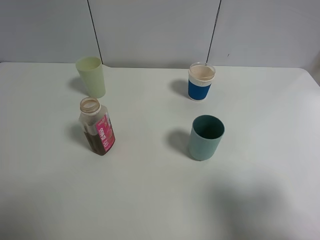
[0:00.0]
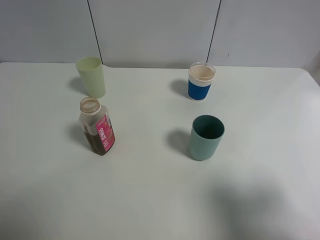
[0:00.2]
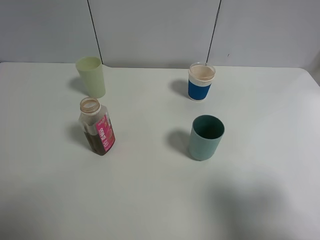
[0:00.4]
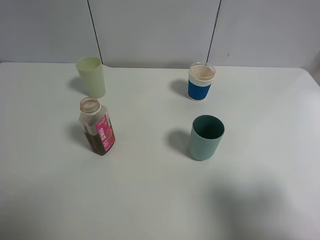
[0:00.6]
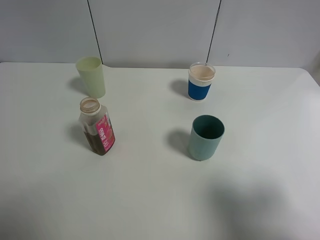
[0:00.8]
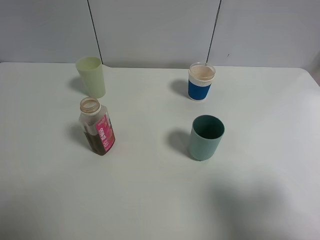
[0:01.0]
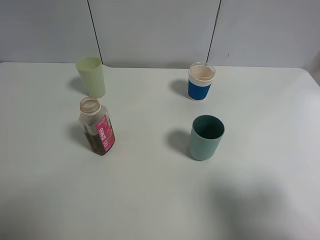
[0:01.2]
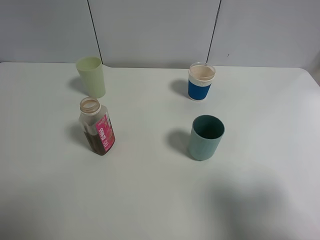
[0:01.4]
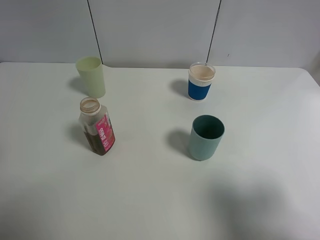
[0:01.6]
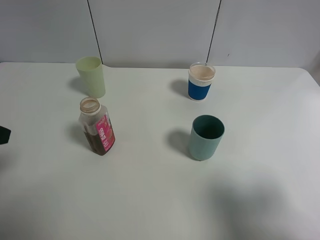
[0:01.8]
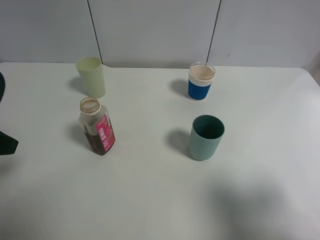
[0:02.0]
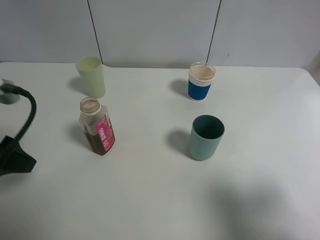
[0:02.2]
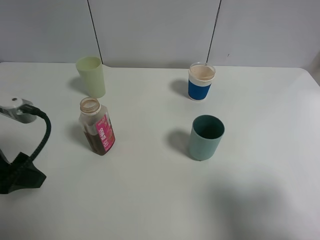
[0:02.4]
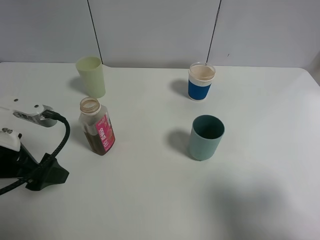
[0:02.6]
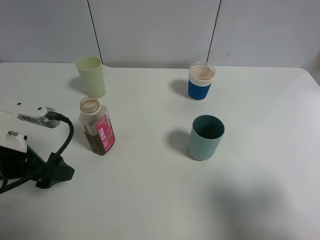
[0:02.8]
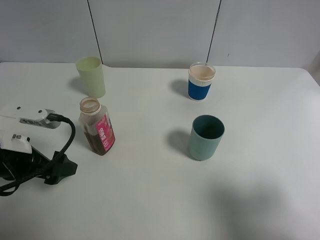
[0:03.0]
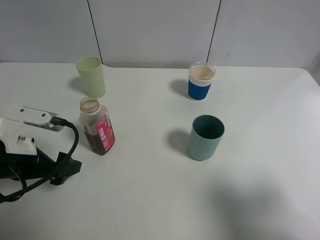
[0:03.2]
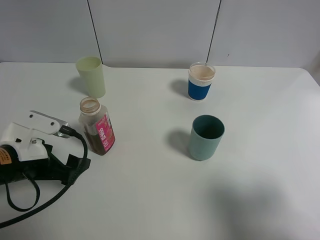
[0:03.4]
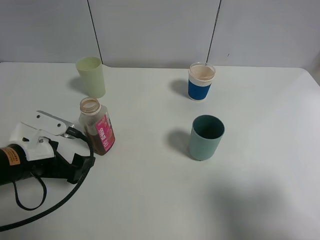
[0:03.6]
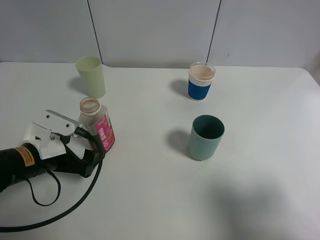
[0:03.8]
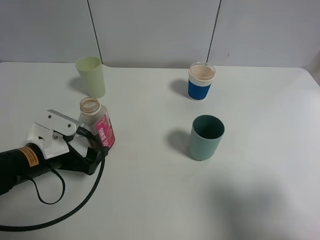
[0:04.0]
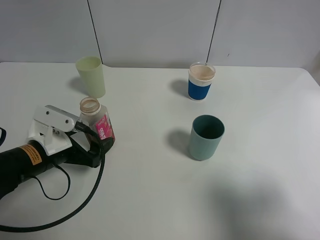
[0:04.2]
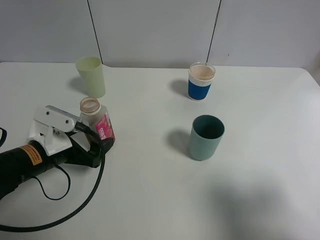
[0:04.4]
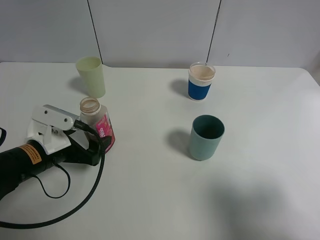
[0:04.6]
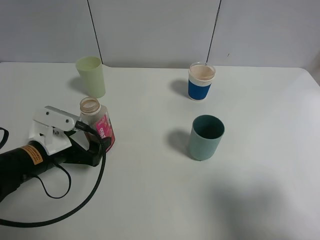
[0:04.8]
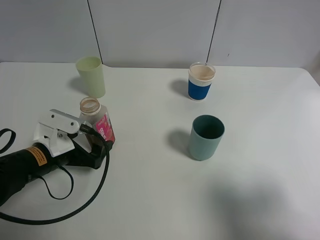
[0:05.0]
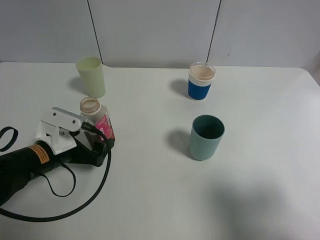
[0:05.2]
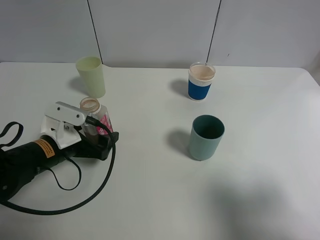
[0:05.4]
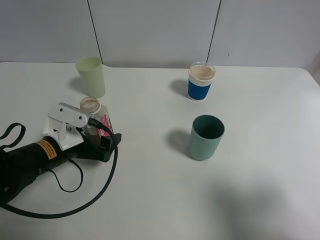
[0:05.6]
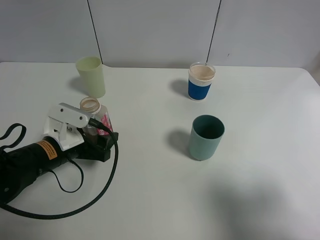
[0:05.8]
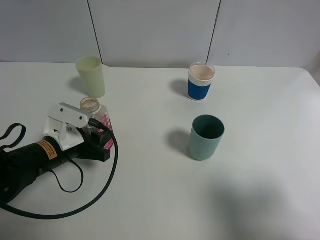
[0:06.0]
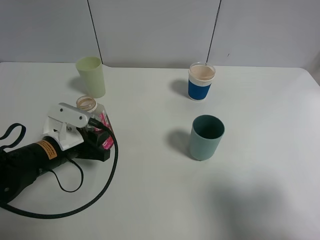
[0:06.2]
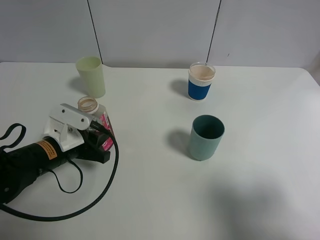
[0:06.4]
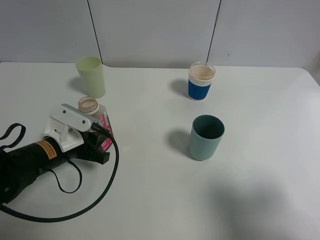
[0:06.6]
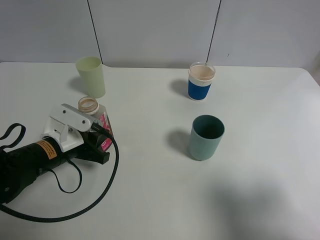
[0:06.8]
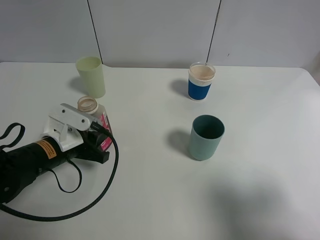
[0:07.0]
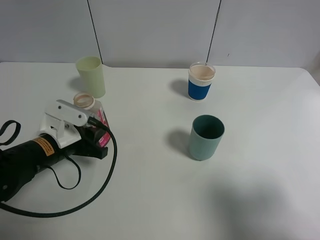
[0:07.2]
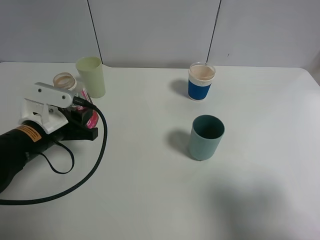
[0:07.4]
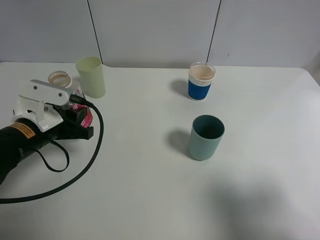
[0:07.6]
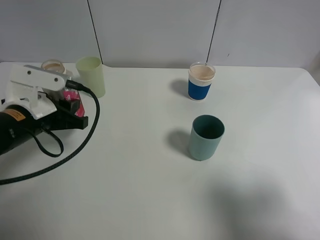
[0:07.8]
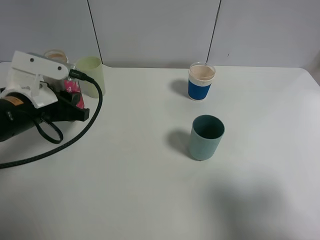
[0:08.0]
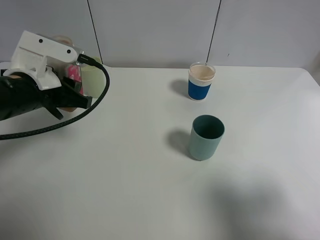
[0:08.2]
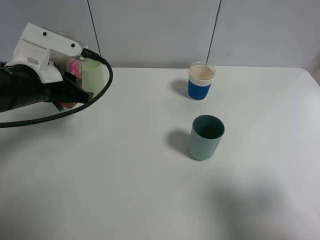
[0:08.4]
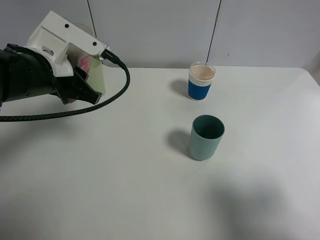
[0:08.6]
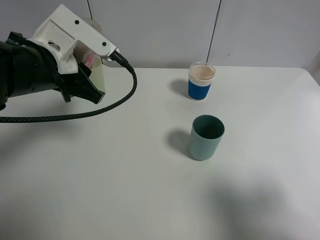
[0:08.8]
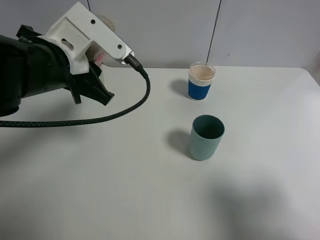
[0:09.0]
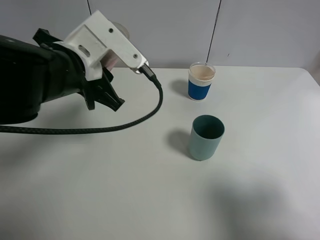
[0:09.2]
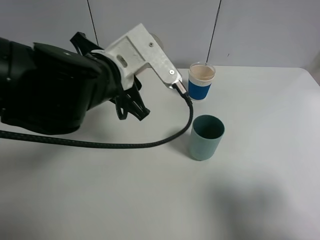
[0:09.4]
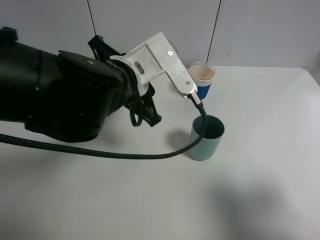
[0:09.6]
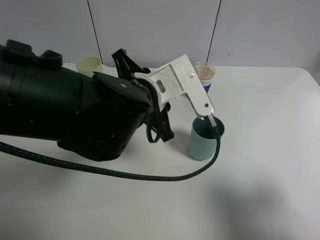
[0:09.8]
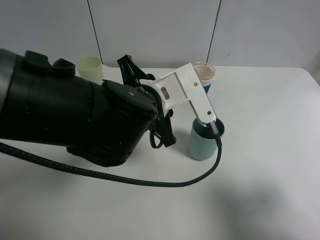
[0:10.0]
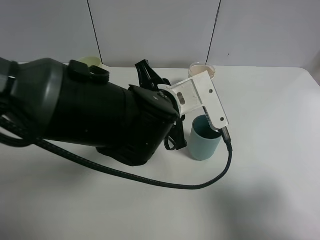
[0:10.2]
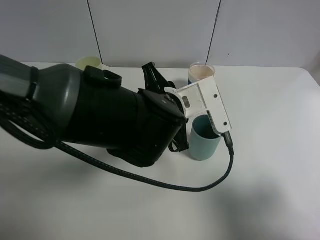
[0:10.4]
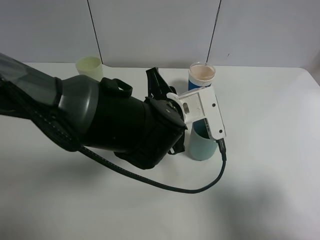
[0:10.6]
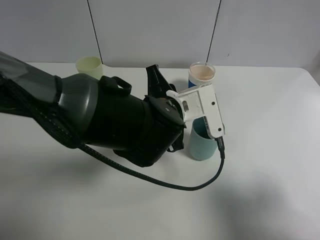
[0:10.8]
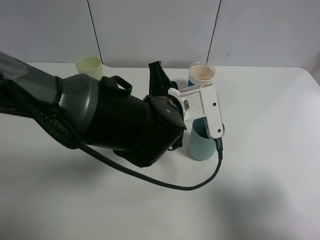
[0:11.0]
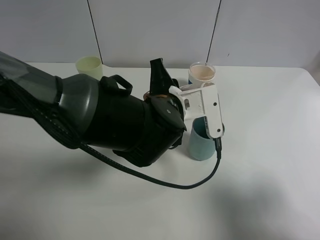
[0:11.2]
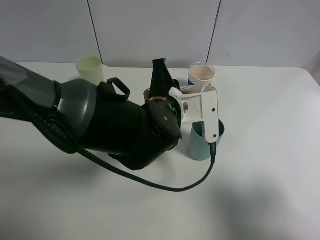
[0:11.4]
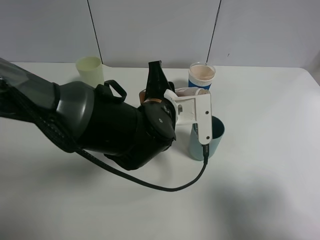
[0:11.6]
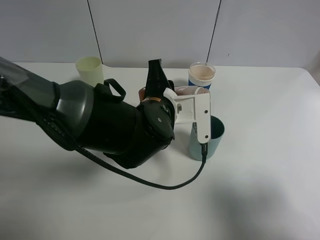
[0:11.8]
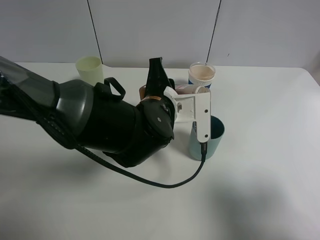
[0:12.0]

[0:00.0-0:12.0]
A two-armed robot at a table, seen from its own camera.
Task of the whole recording: use a clamp to hold the bottle of the drink, pour the beverage into a random cup, then clamp the cup containing the drink and pour the drink into another random cup.
Step, 0:00.0 to 0:07.6: Pick up the drink bottle with left gripper.
0:01.6 to 0:03.0: The left gripper is displaced downward and forward by approximately 15 cm.
0:03.0 to 0:04.4: The left gripper is displaced downward by roughly 5 cm.
0:04.4 to 0:06.0: The left gripper closes its fingers.
0:06.0 to 0:07.6: The left gripper shifts some 5 cm upward.
0:07.6 to 0:09.0: The left gripper is displaced upward and to the right by about 15 cm.
0:09.0 to 0:10.4: The left gripper moves to the right and downward, some 15 cm.
0:10.4 to 0:12.0: The grippers move only a little.

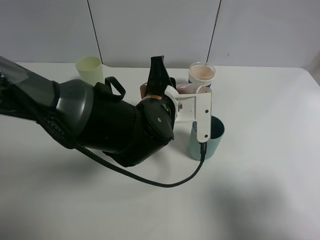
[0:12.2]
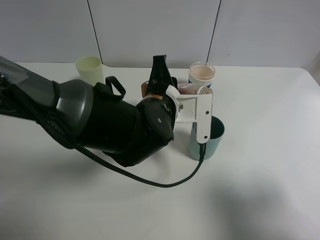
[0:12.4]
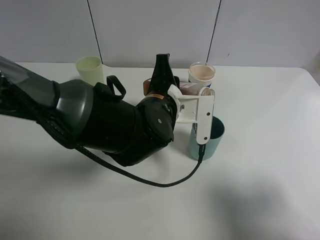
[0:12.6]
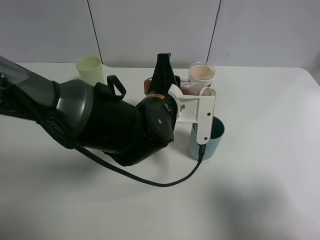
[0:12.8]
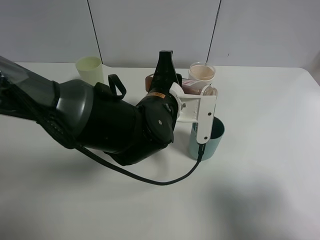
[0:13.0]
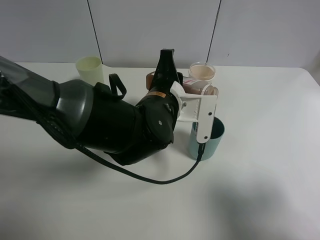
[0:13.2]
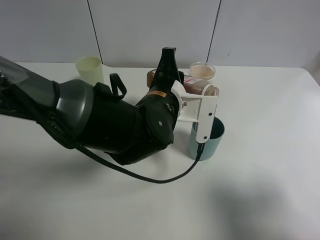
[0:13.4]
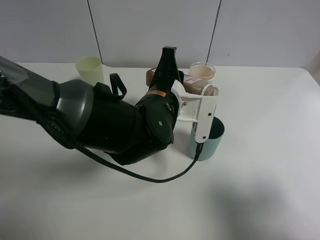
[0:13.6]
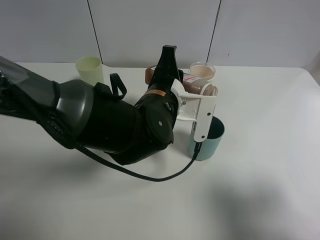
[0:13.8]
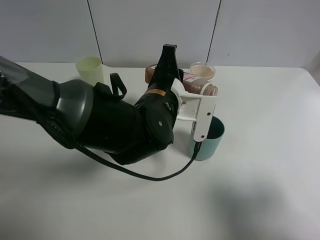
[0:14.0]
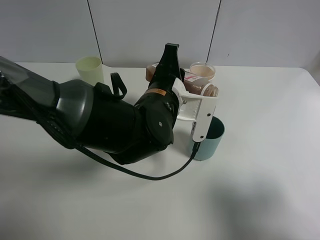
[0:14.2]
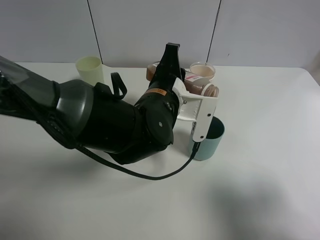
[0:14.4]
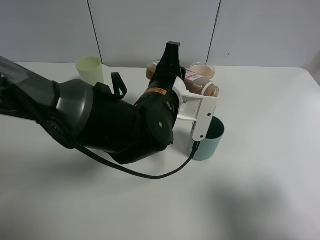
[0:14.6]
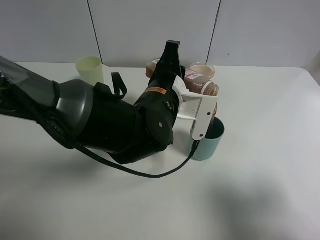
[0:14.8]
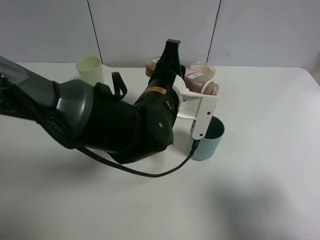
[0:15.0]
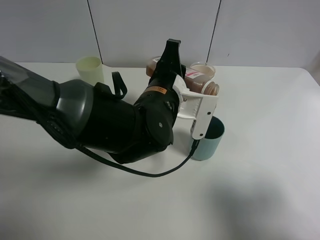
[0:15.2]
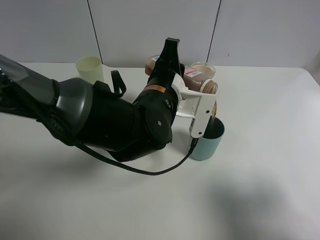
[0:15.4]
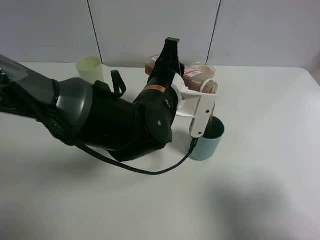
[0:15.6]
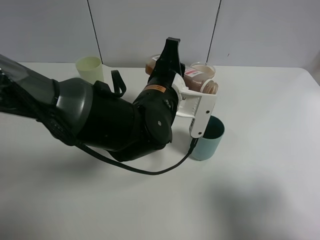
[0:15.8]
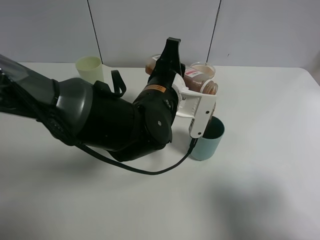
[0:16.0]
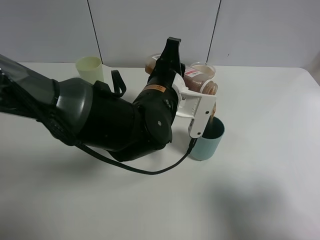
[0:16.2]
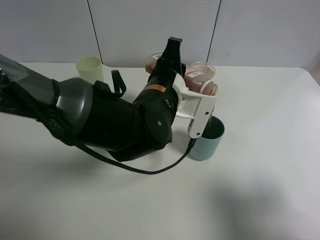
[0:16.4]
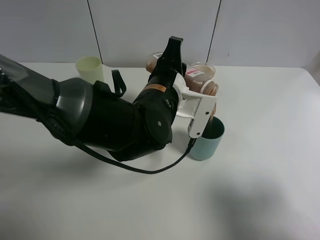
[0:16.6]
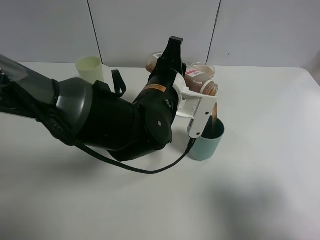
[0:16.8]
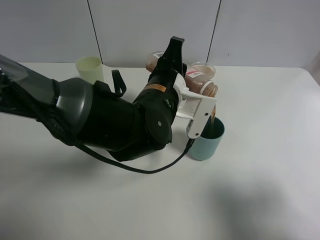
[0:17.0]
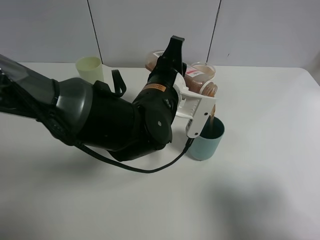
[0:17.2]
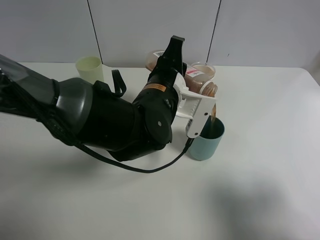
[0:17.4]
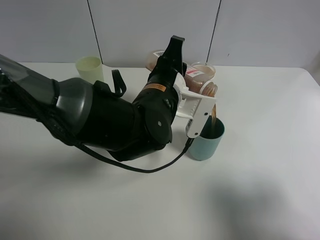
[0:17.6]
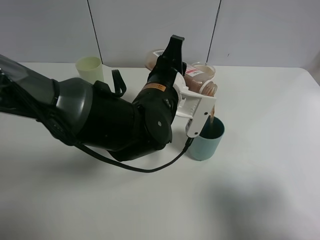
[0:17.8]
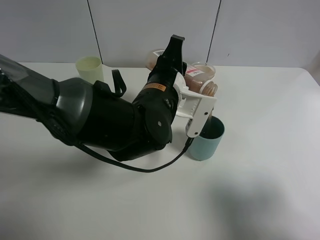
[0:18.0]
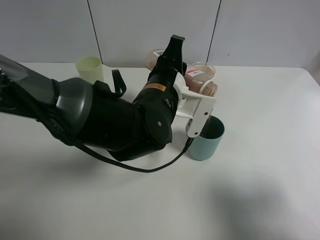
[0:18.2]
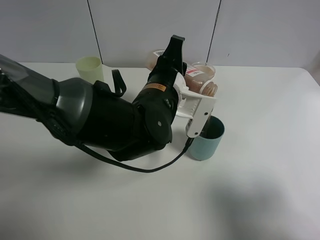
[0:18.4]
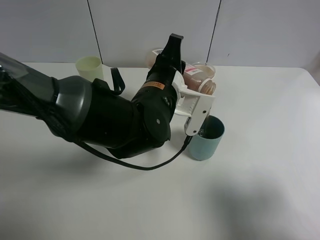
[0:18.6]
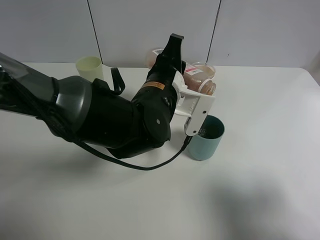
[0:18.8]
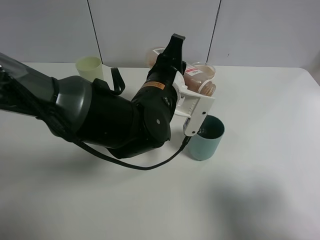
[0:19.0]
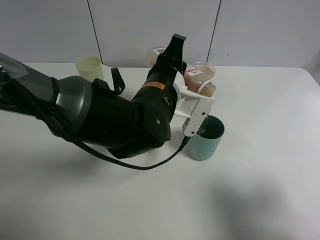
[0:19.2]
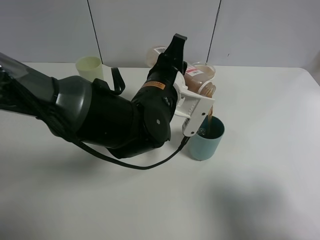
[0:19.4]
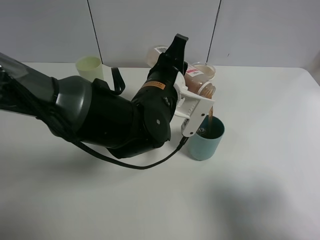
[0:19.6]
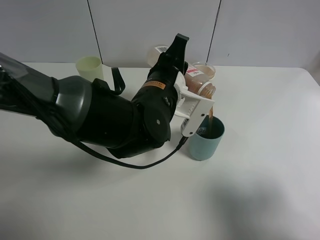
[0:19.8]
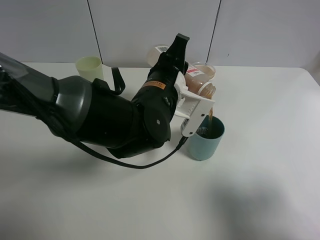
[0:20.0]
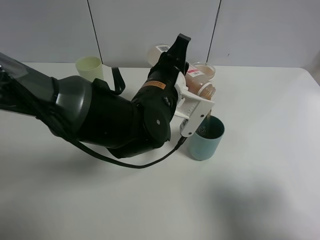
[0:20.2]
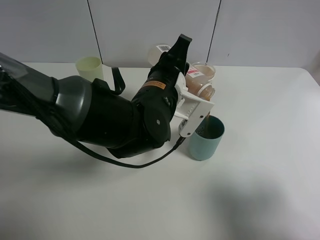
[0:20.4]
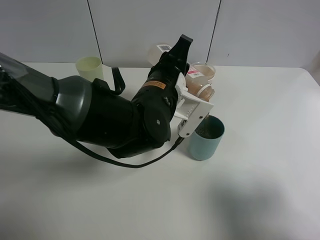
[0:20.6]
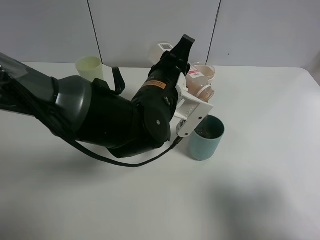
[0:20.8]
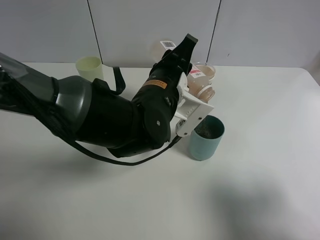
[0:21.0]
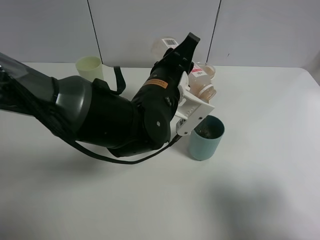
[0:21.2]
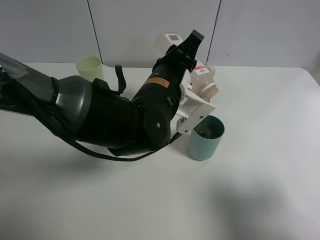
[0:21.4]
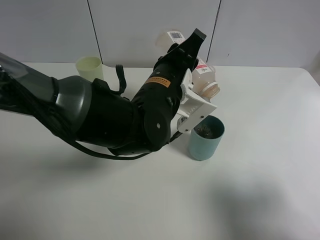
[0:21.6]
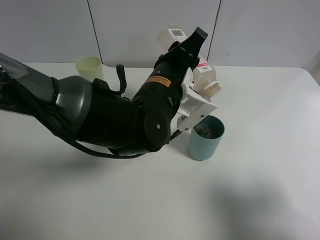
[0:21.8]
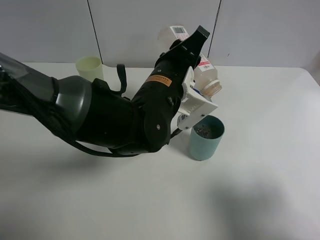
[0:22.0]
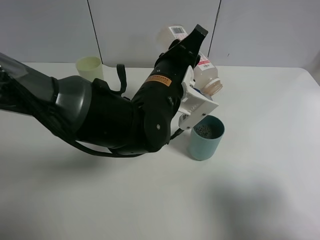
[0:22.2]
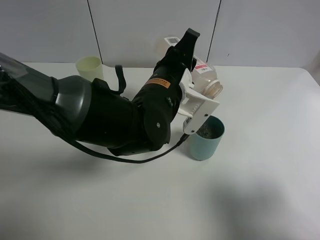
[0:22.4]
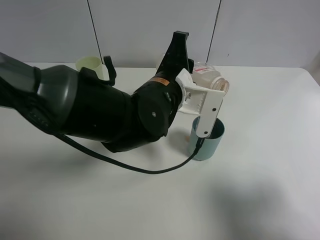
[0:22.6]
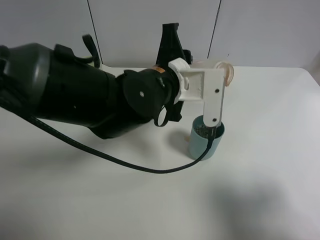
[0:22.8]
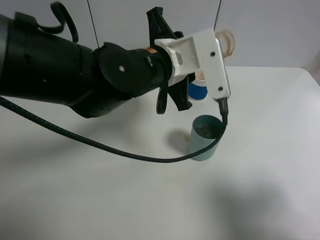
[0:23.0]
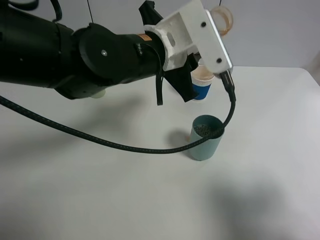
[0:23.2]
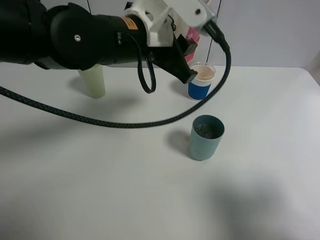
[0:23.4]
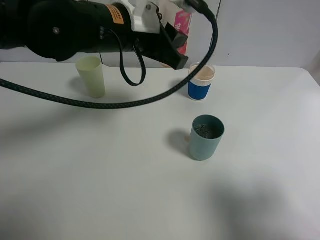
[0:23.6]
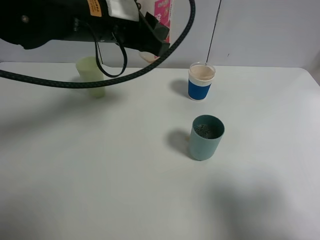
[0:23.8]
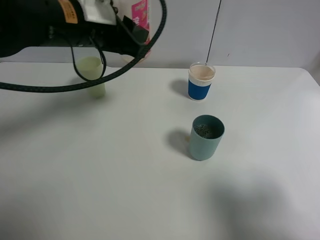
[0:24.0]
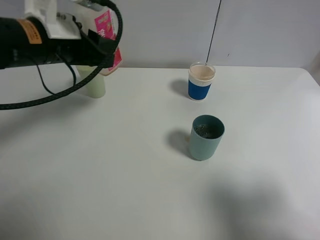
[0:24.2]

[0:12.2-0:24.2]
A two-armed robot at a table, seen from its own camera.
Task of the whole recording: use a clamp to hold the bottle of the drink, pour the beverage into a random cup, then clamp the cup containing the drink and pour the drink into another random cup.
Step, 0:12.2 to 0:22.8: Pour the drink into the blue plastic cup with left gripper.
0:12.2 to 0:15.2: The grippers stay close to where they were, moving slightly.
0:15.2 to 0:16.6: The two grippers keep their place.
0:16.6 to 0:18.2: Both grippers stay about where they are.
0:18.2 to 0:21.2: The grippers move only a little.
0:22.6 to 0:24.2: The left gripper is displaced to the left and upward by roughly 20 cm.
